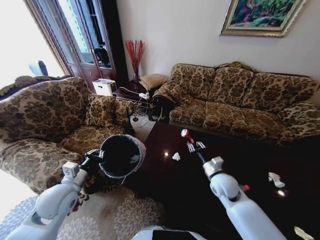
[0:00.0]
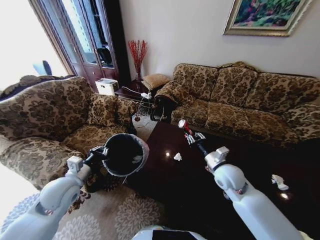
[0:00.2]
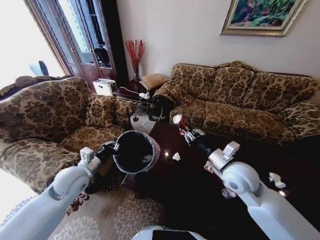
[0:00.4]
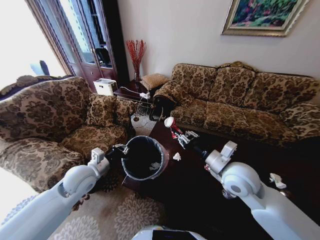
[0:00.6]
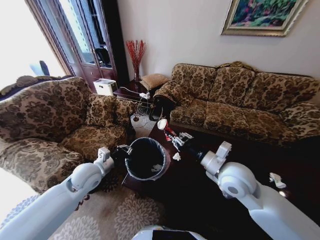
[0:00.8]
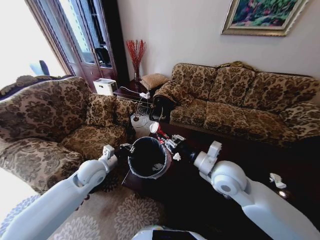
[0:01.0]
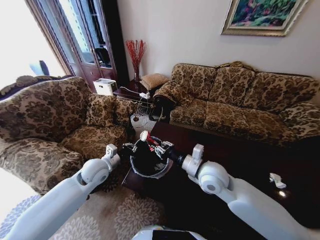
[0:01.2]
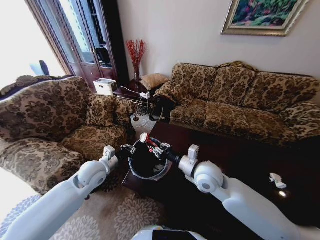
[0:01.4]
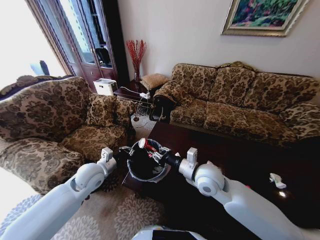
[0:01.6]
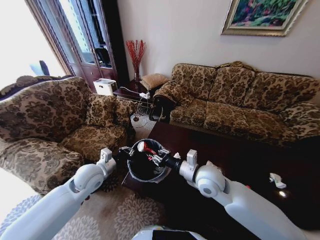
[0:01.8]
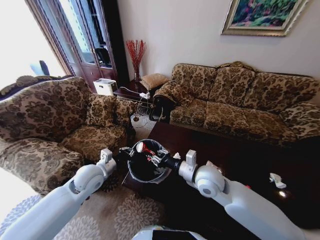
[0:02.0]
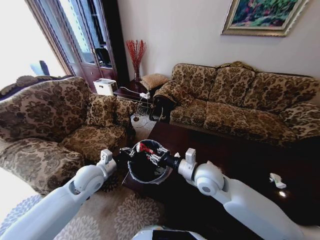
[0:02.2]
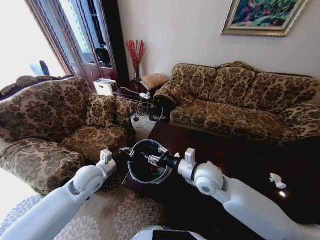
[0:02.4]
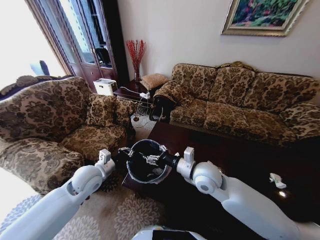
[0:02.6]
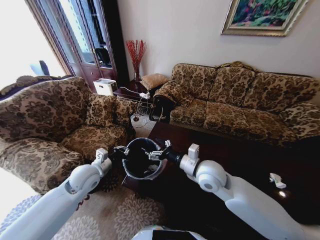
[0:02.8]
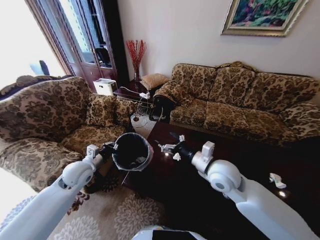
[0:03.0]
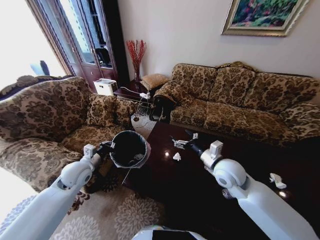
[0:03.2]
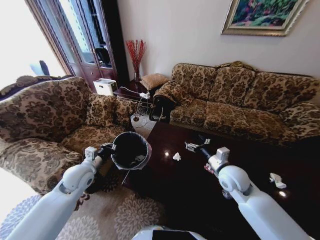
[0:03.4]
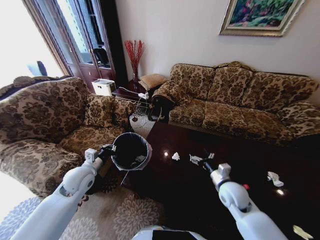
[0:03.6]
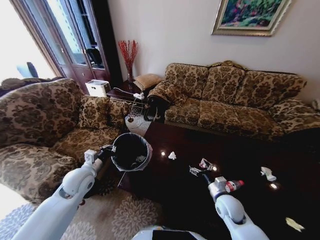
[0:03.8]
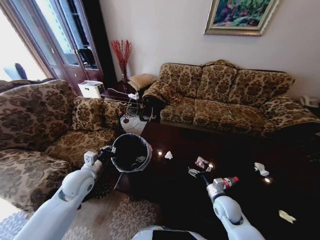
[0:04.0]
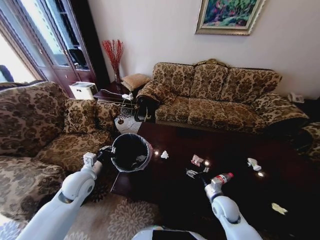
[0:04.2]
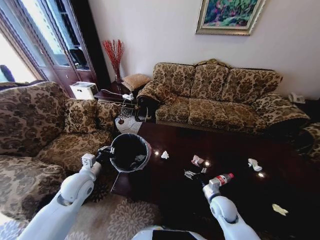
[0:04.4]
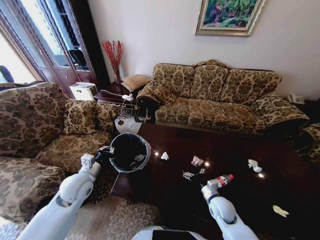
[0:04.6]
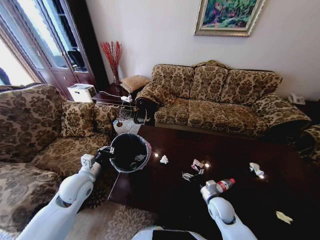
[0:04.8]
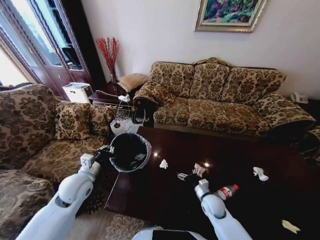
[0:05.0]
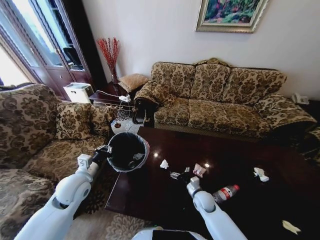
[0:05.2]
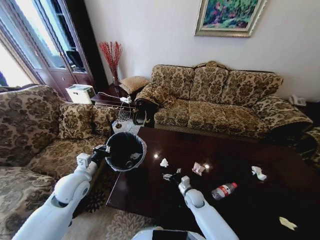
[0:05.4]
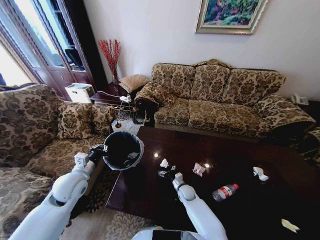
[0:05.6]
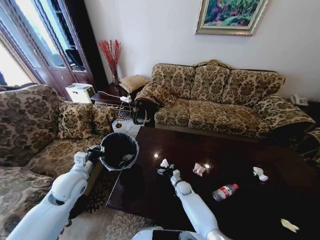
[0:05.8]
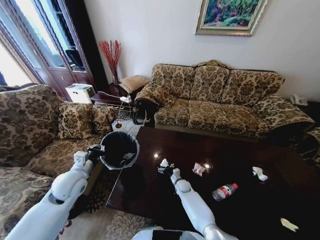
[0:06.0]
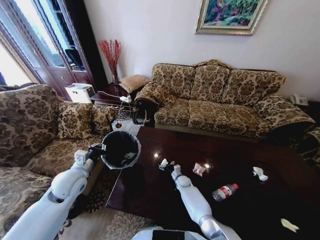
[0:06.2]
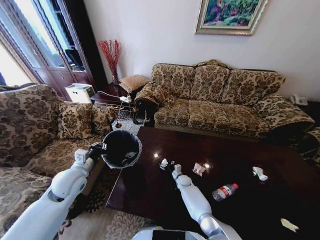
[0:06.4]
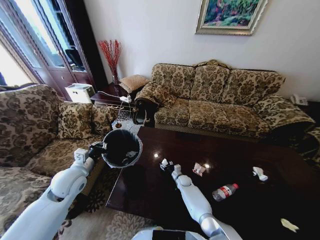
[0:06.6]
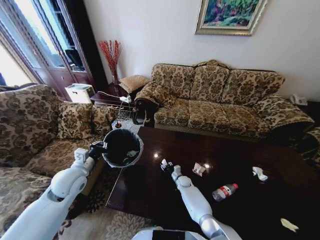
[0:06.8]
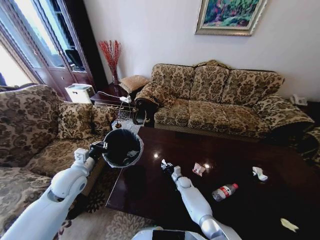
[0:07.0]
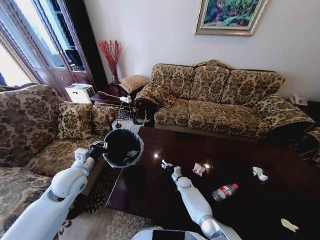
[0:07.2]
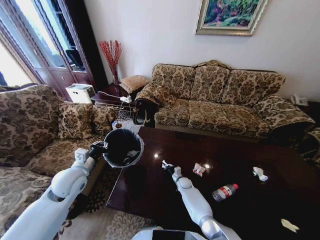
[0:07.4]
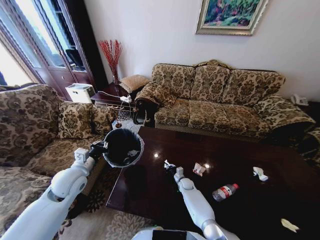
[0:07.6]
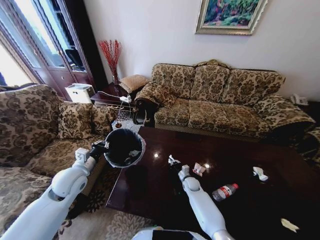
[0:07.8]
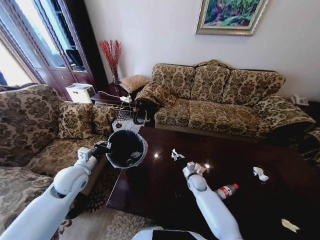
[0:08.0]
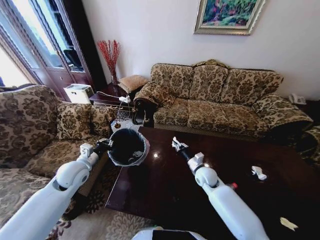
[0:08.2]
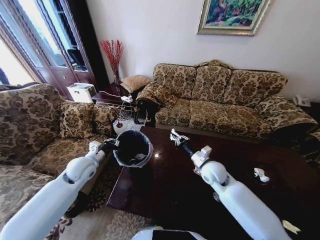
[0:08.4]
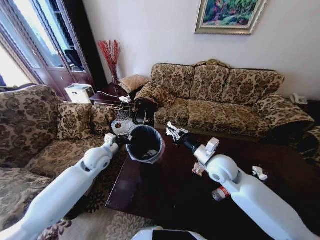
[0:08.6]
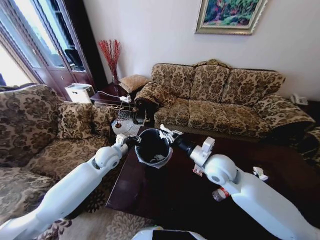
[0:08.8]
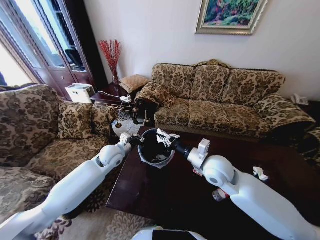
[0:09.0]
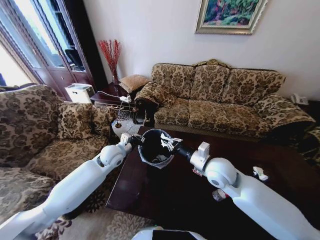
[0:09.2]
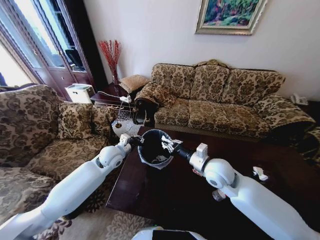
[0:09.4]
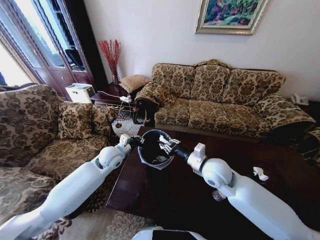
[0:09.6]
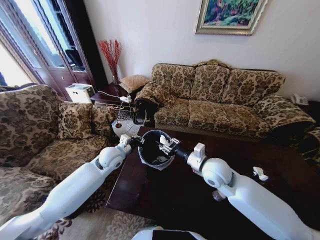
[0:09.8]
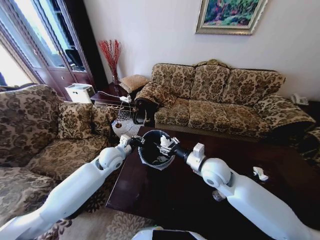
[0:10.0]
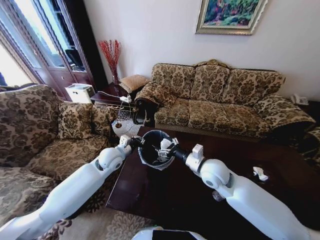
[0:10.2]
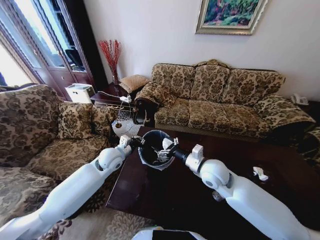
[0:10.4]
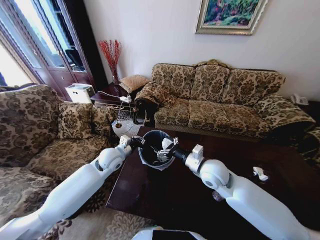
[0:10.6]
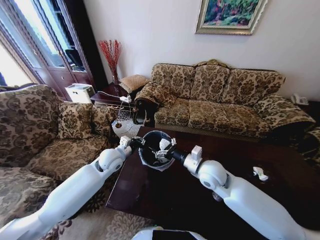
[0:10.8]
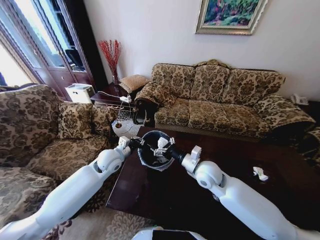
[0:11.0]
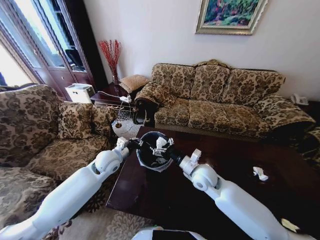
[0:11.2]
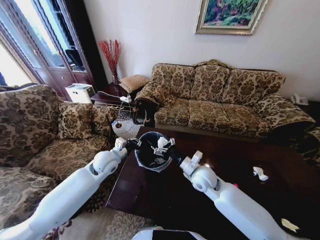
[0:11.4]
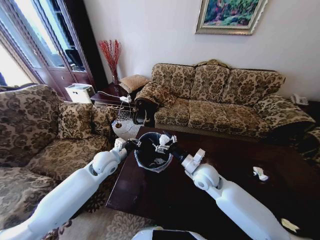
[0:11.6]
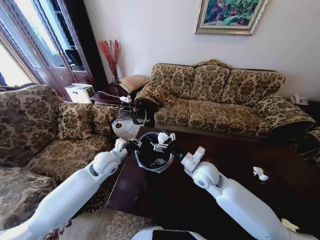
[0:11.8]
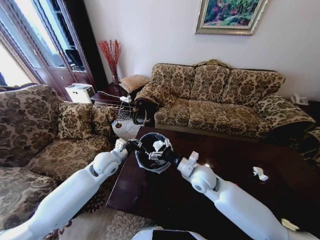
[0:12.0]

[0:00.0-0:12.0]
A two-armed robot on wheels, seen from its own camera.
Task of the whole recording: Move to the front of the table and place the trash on the table into the trash bin.
0:00.0 to 0:01.6: The left gripper moves forward and to the right, about 10 cm. Meanwhile the right gripper is displaced to the left and upward by approximately 15 cm.
0:01.6 to 0:03.0: The right gripper opens. Meanwhile the left gripper moves to the left, approximately 5 cm.
0:03.0 to 0:04.4: The right gripper goes some 25 cm downward.
0:04.4 to 0:06.0: The right gripper shifts some 25 cm downward, forward and to the left.
0:06.0 to 0:07.6: The right gripper closes its fingers.
0:07.6 to 0:09.0: The left gripper moves forward and to the right, some 15 cm. Meanwhile the right gripper moves upward, roughly 40 cm.
0:09.0 to 0:10.4: The right gripper opens up.
0:10.4 to 0:12.0: The right gripper moves approximately 5 cm.

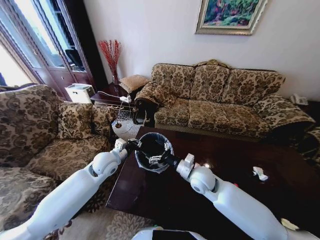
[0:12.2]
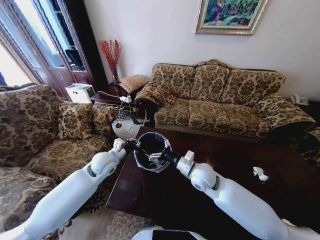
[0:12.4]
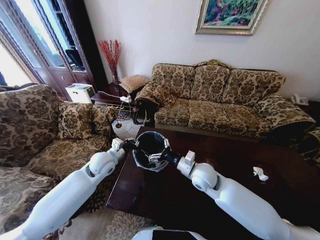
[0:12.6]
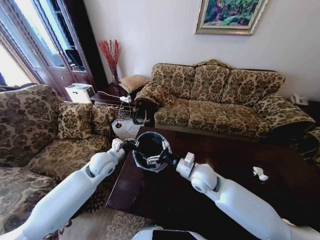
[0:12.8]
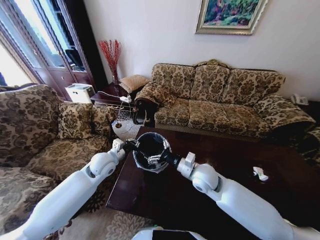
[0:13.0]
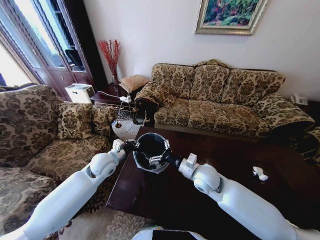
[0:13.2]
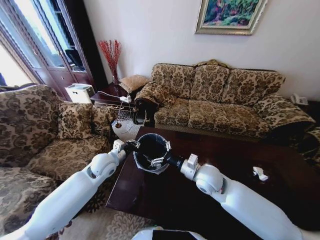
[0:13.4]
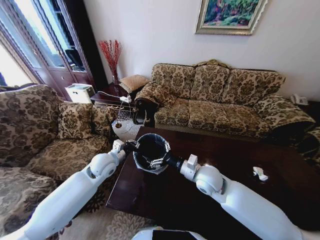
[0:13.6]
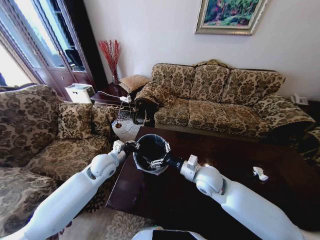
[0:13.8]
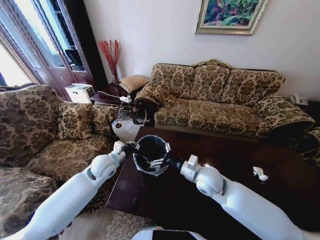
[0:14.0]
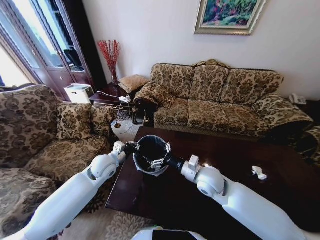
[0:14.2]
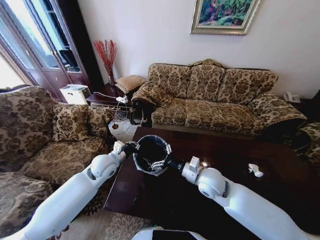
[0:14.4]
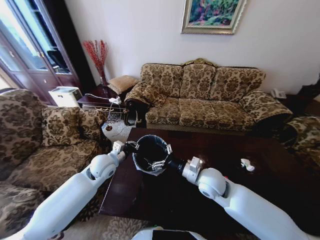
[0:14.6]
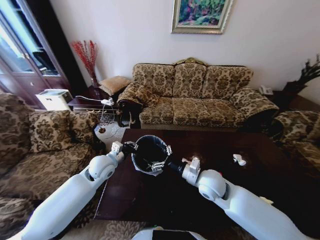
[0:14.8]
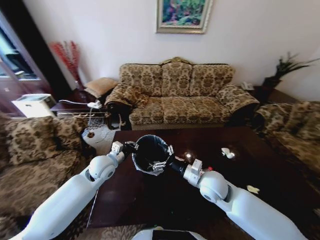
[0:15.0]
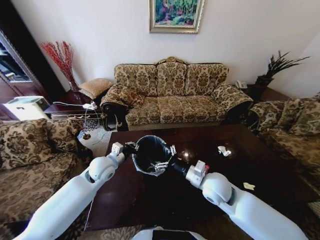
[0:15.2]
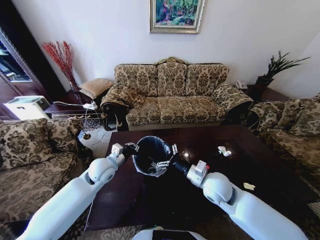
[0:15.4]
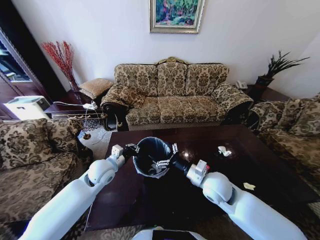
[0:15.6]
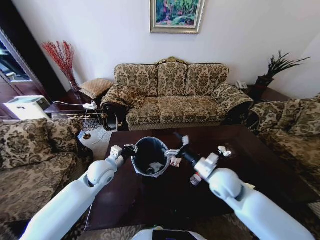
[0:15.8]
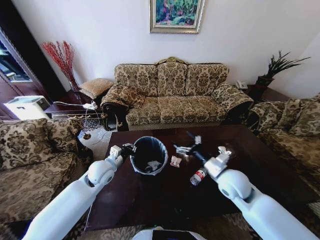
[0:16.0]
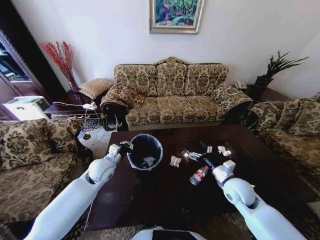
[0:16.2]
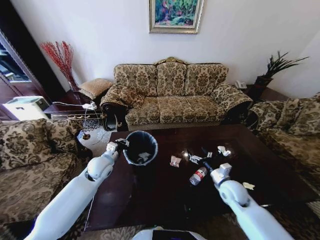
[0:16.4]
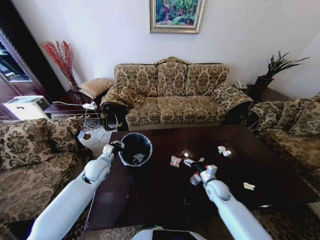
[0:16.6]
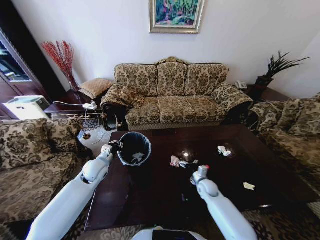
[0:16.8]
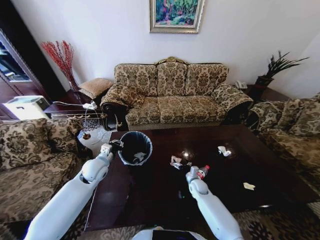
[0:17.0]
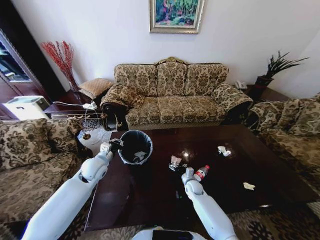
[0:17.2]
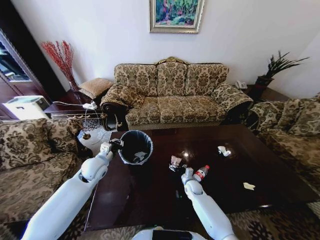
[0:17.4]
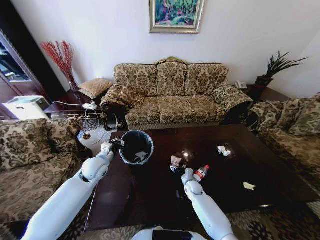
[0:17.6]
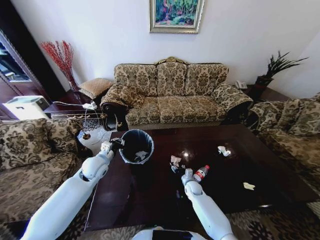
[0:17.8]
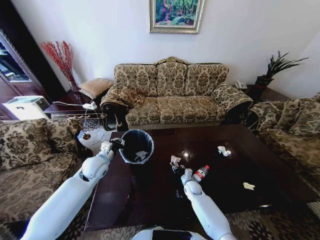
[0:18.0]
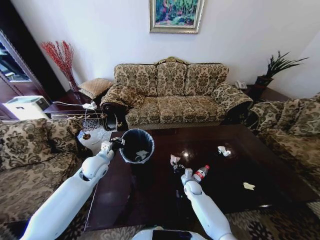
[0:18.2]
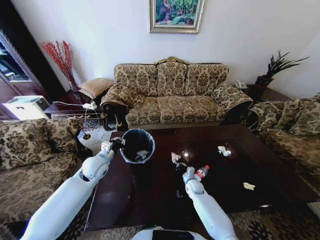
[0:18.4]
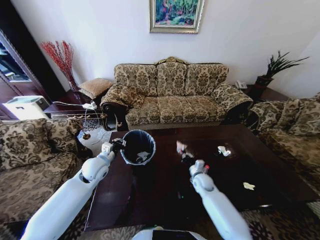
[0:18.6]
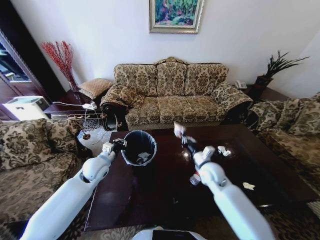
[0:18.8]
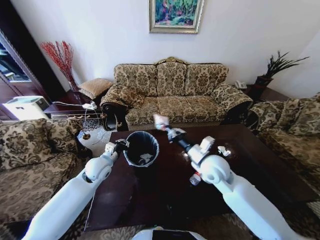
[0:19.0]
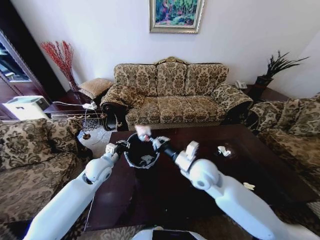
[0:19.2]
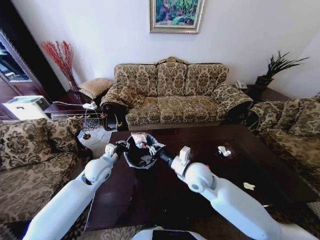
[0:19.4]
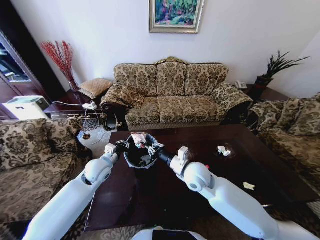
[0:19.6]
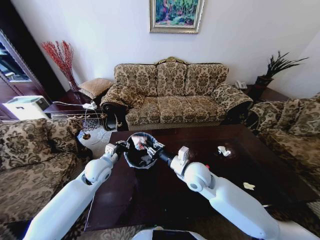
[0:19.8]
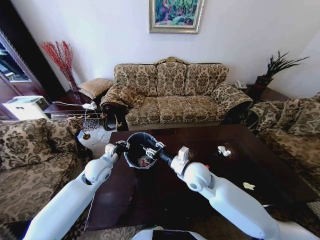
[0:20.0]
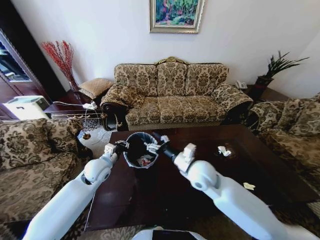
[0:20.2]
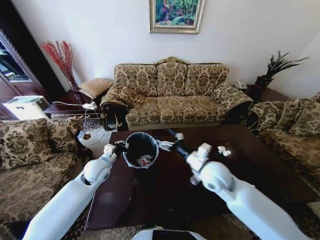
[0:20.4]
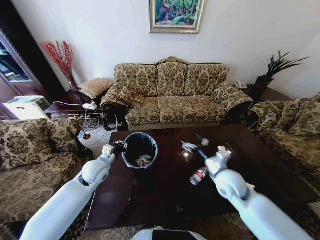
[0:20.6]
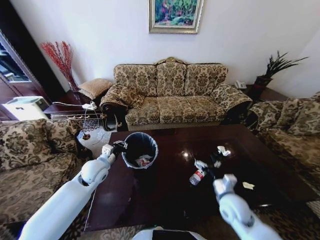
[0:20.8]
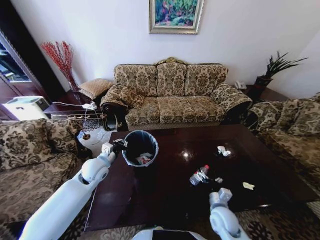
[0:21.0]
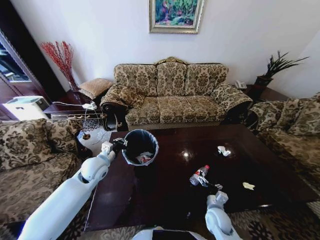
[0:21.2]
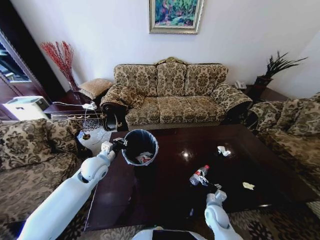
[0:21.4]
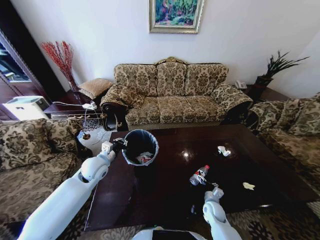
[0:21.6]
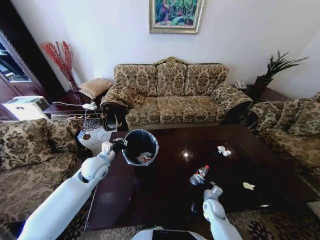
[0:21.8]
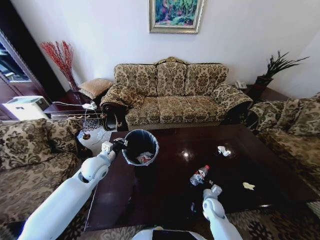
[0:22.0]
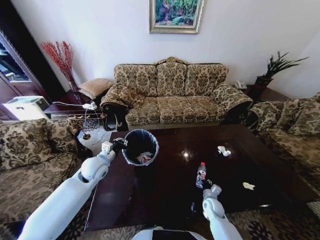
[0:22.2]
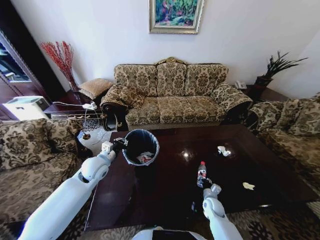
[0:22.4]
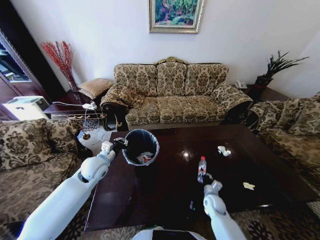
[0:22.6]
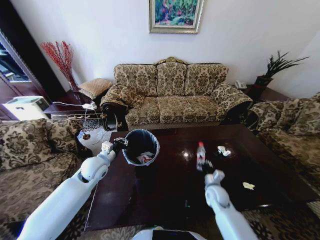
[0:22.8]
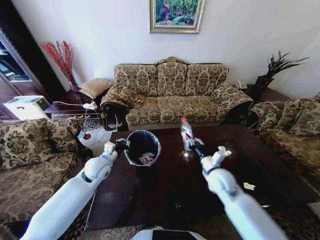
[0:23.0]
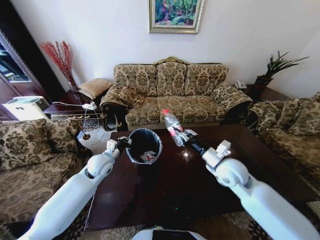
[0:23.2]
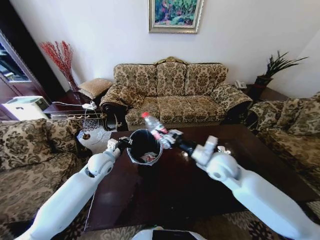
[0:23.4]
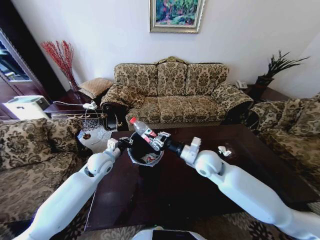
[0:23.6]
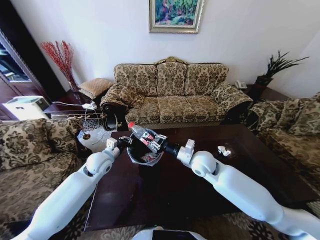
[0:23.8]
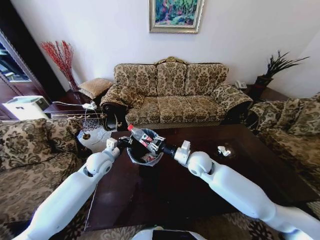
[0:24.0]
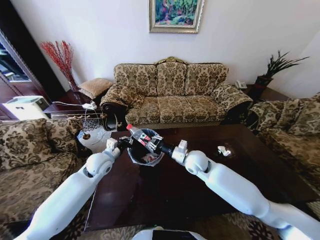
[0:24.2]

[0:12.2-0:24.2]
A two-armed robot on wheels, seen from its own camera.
Task of the whole recording: Move to the front of the table and place the trash on the table into the trash bin.
0:12.2 to 0:13.8: The grippers move only a little.
0:15.2 to 0:16.6: The left gripper changes place by about 5 cm; the right gripper heads downward and to the right, covering about 20 cm.
0:16.6 to 0:18.2: The right gripper travels downward and to the left by about 15 cm, and closes.
0:18.2 to 0:19.8: The right gripper shifts about 30 cm upward.
0:19.8 to 0:21.2: The right gripper moves downward, to the right and backward, about 25 cm, and opens its fingers.
0:21.2 to 0:22.6: The right gripper goes roughly 10 cm downward and forward, and closes up.
0:22.6 to 0:24.2: The right gripper goes about 30 cm upward and to the left.
